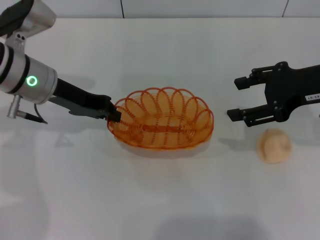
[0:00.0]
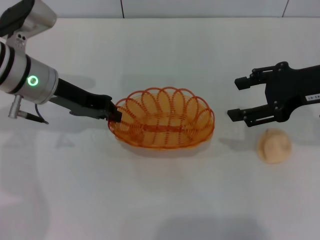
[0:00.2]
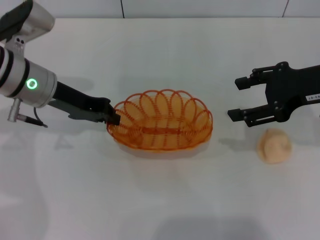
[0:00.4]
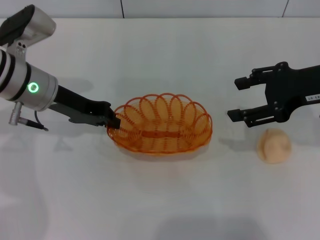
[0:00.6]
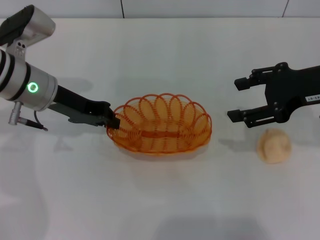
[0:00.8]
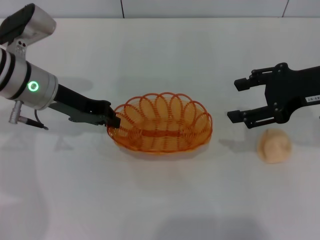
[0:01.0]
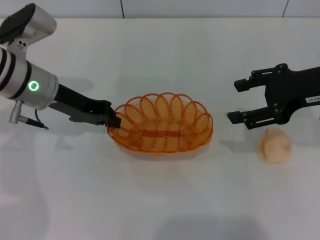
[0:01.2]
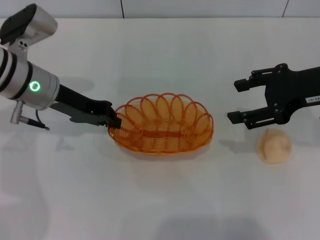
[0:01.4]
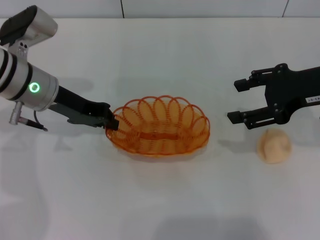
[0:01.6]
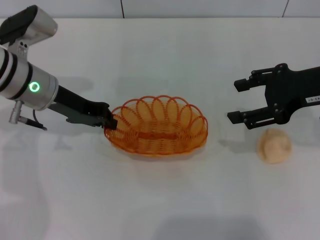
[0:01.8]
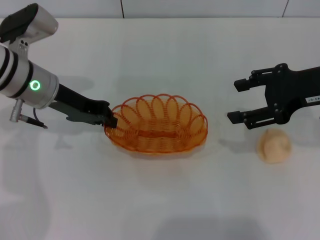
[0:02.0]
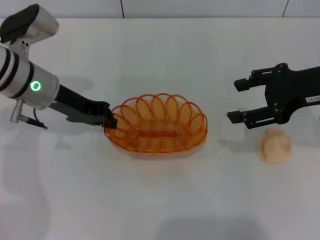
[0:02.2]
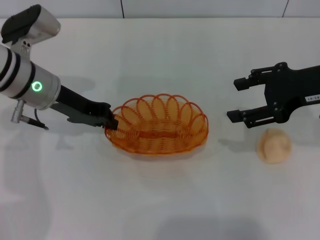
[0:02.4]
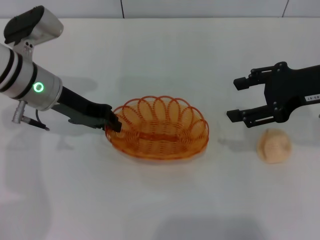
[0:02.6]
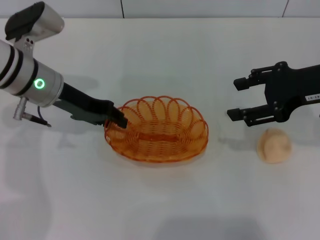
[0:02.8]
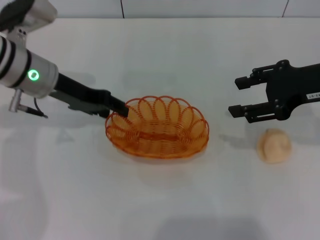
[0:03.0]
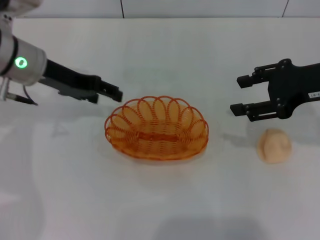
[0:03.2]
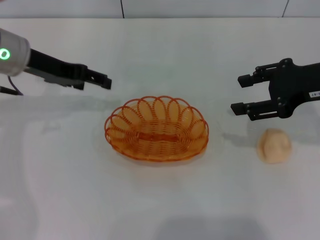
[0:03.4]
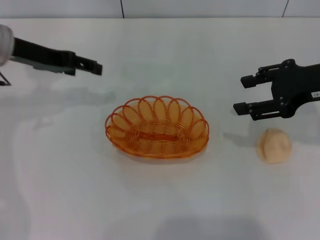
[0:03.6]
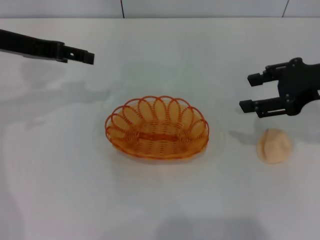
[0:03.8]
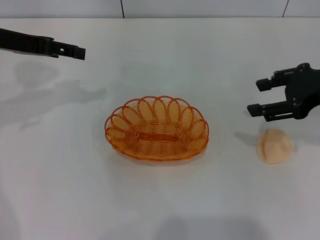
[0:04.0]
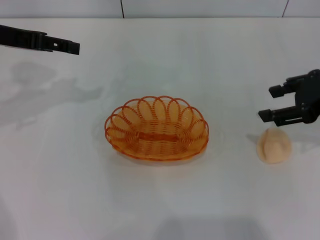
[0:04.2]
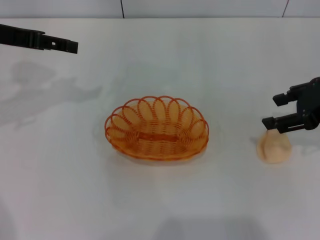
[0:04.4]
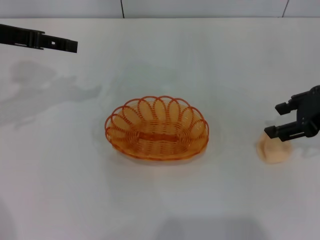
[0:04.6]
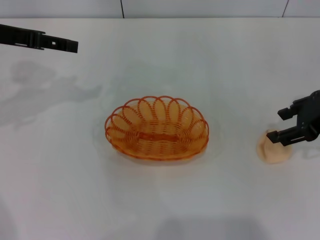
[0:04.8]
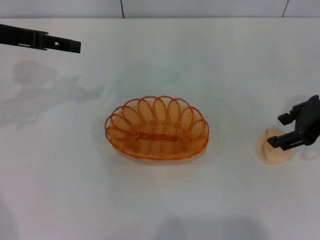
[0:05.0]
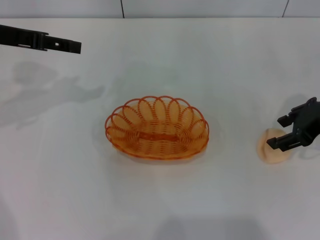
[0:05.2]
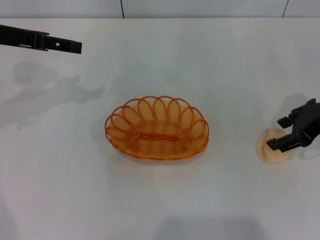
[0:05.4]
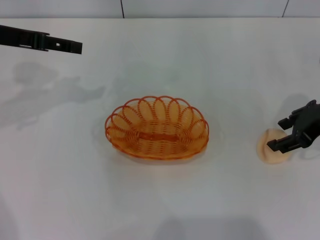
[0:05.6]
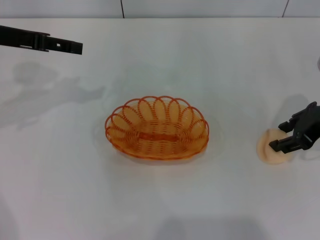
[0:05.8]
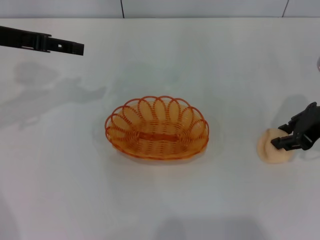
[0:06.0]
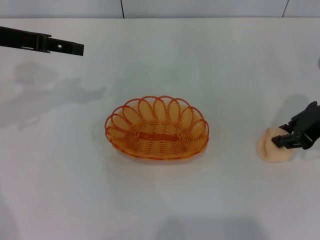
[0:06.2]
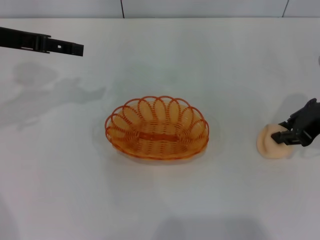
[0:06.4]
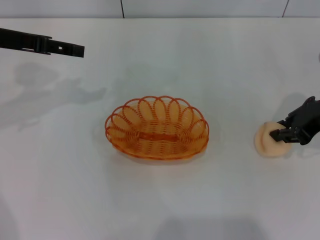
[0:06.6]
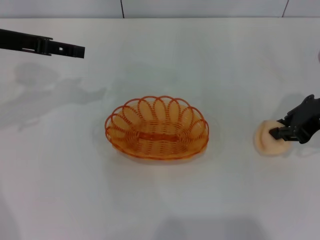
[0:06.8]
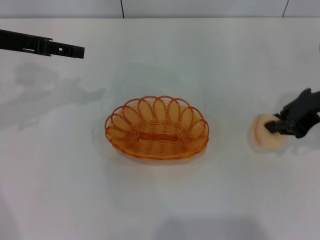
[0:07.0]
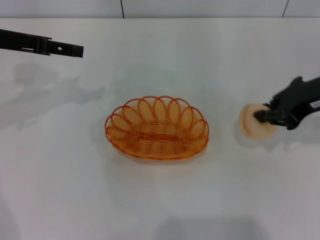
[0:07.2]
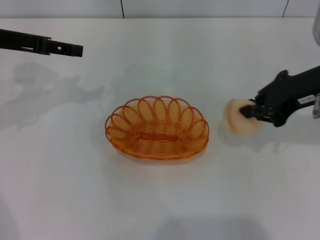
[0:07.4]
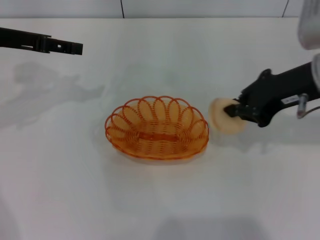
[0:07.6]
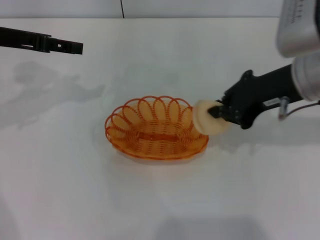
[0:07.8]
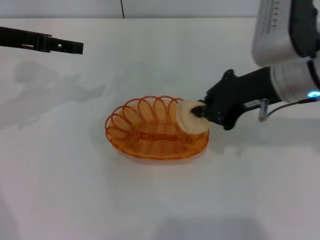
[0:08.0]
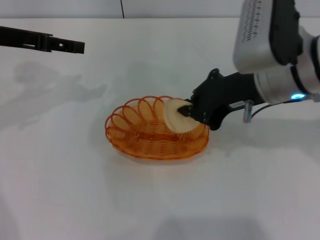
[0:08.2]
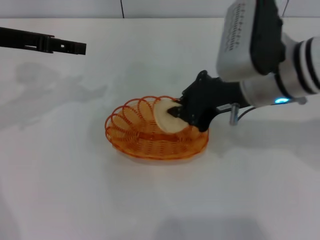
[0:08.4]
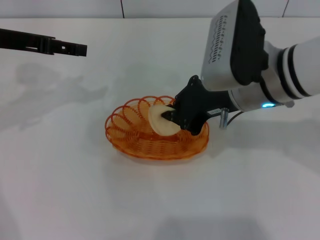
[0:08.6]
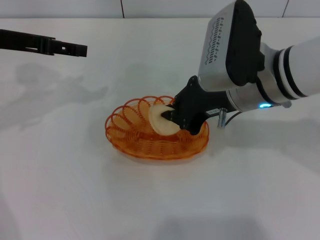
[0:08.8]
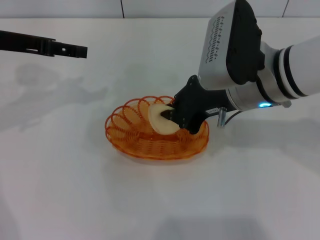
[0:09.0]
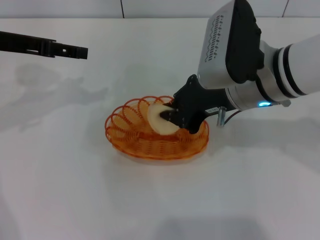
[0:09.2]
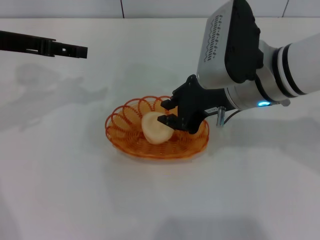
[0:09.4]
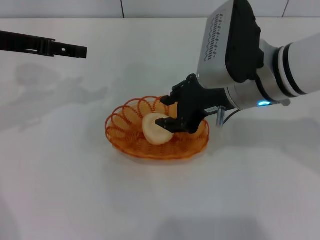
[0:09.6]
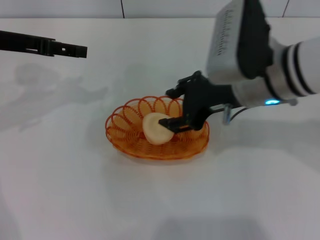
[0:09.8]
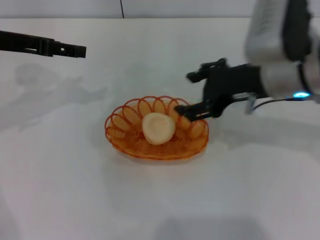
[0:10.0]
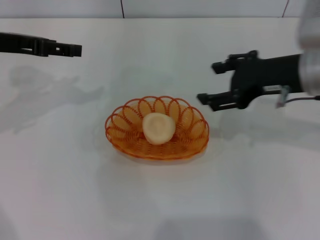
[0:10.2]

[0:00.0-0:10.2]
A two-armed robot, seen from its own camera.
Step, 0:00.0 to 0:03.2: Place the basket in the center of view with the left gripper.
Step, 0:03.4 to 0:07.2: Pick up the egg yolk pastry with the right gripper.
Step, 0:07.6 to 0:10.0: Place the egg yolk pastry into the basket with the right gripper.
0:00.0 to 0:01.4: Both grippers stay put.
0:01.4 to 0:03.0: The grippers make only small movements.
0:03.0 to 0:04.4: The left gripper goes approximately 10 cm upward and to the left, and opens its fingers.
0:04.4 to 0:05.8: The grippers move only a little.
0:05.8 to 0:07.2: The right gripper closes up.
0:07.2 to 0:08.8: The right gripper travels to the left by roughly 15 cm.
0:08.8 to 0:10.2: The right gripper shifts roughly 10 cm to the right, and opens its fingers.

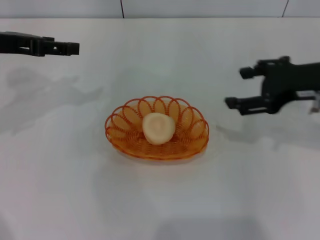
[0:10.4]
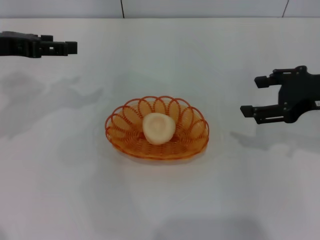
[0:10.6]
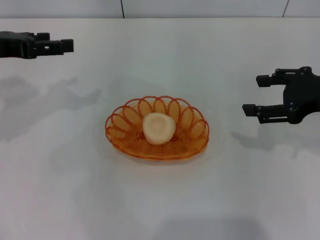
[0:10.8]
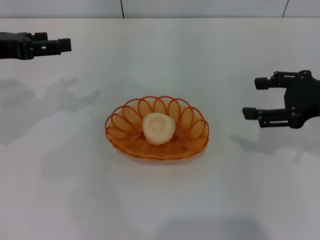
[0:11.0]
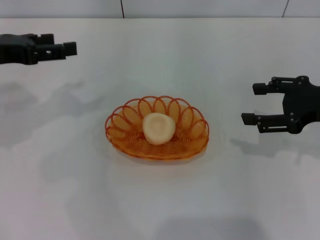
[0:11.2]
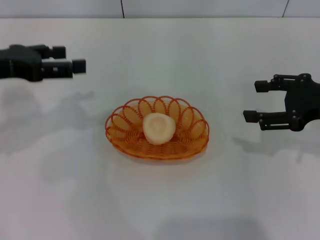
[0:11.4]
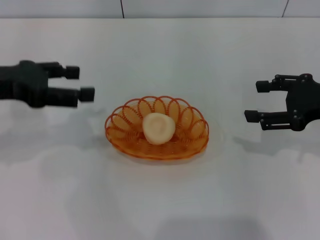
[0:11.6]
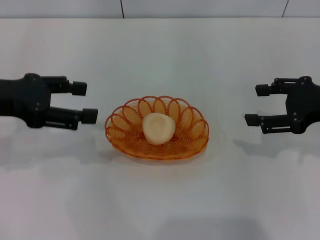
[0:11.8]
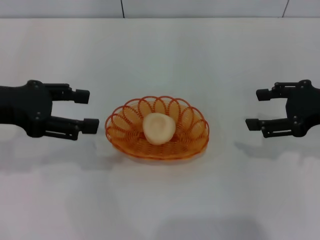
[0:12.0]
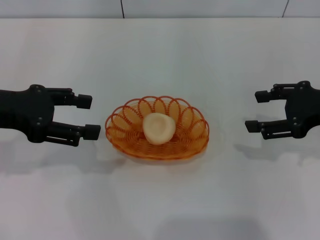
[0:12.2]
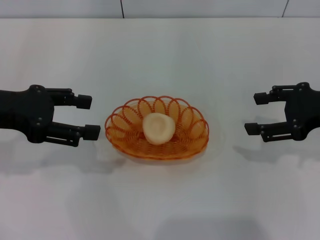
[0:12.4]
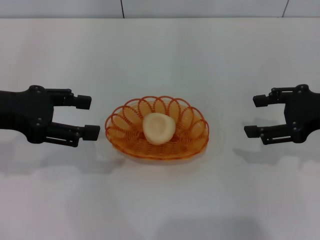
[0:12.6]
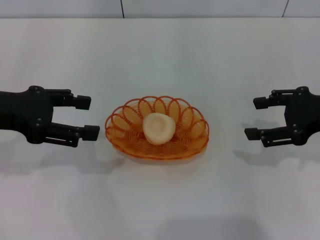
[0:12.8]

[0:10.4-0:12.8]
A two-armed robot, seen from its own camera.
0:10.4 to 0:11.6: The left gripper heads backward, covering some 5 cm. Meanwhile the right gripper travels to the right by about 5 cm.
0:11.6 to 0:12.8: The grippers move only a little.

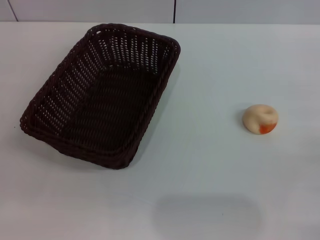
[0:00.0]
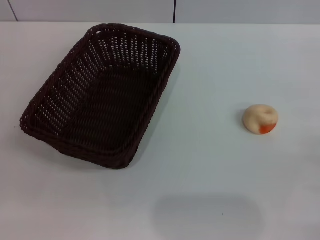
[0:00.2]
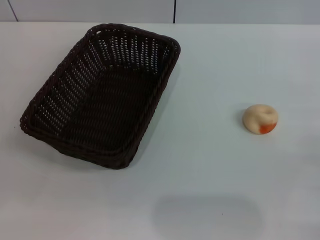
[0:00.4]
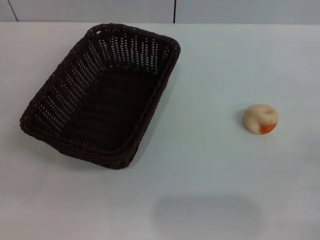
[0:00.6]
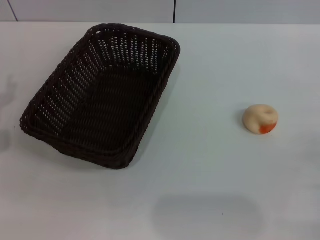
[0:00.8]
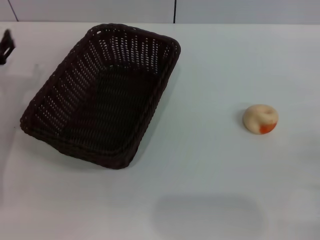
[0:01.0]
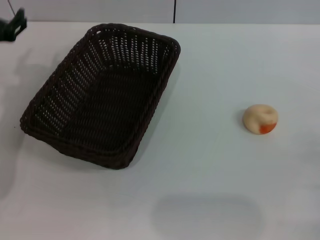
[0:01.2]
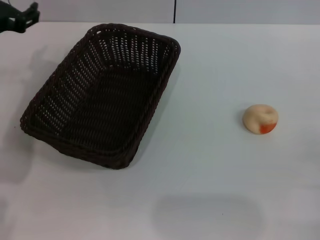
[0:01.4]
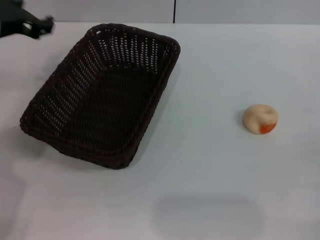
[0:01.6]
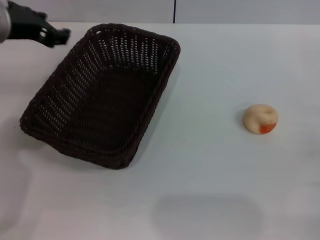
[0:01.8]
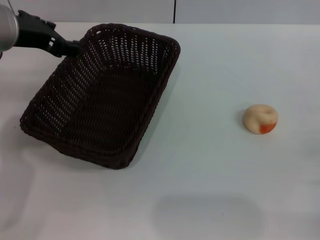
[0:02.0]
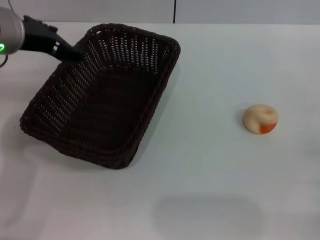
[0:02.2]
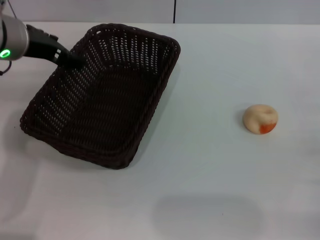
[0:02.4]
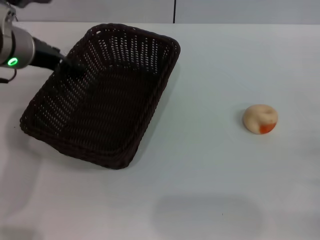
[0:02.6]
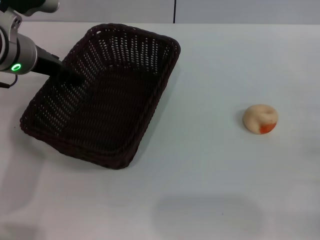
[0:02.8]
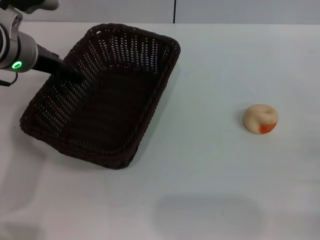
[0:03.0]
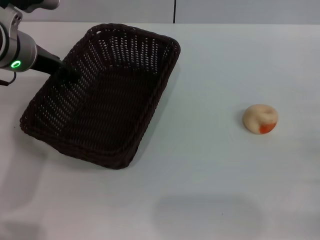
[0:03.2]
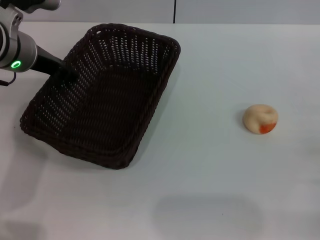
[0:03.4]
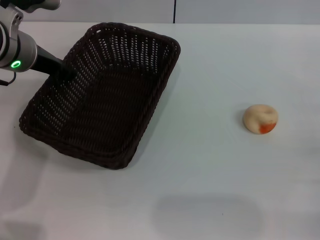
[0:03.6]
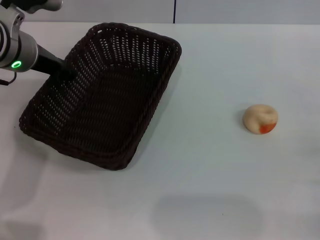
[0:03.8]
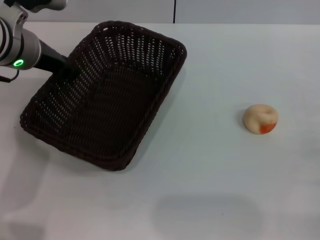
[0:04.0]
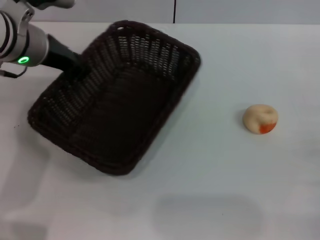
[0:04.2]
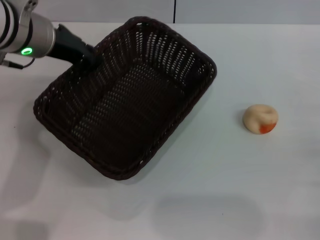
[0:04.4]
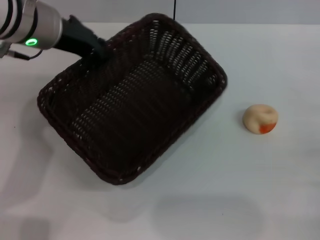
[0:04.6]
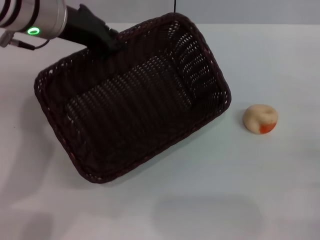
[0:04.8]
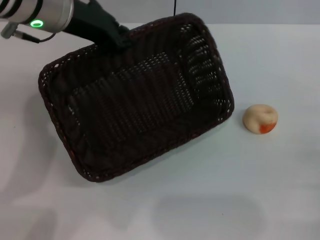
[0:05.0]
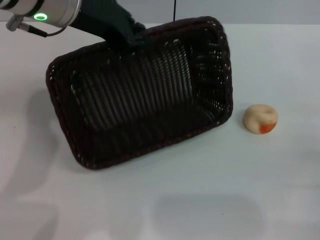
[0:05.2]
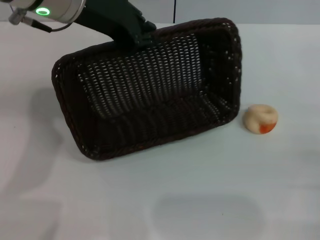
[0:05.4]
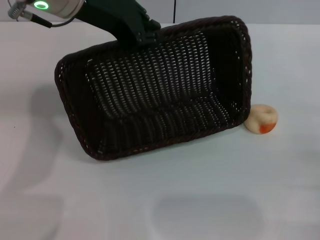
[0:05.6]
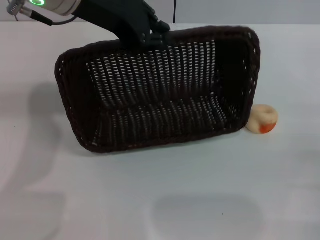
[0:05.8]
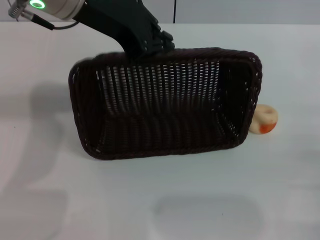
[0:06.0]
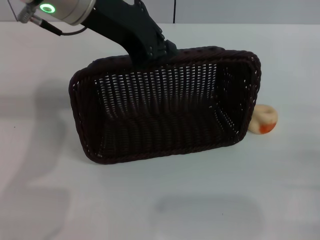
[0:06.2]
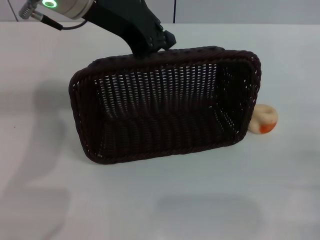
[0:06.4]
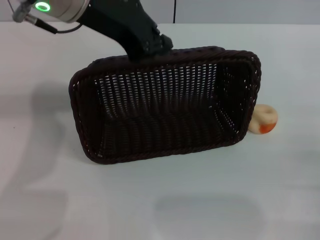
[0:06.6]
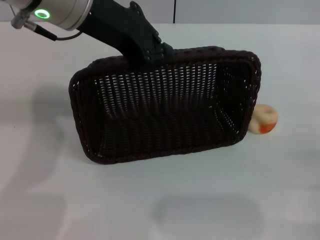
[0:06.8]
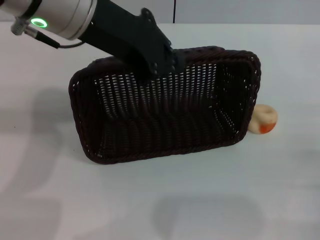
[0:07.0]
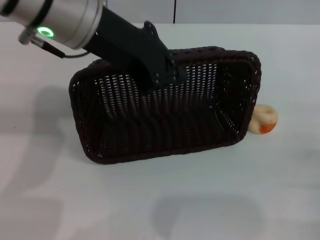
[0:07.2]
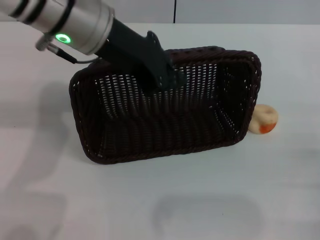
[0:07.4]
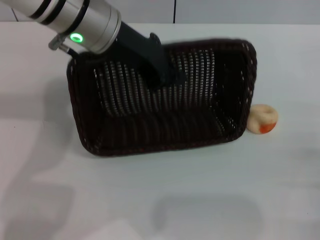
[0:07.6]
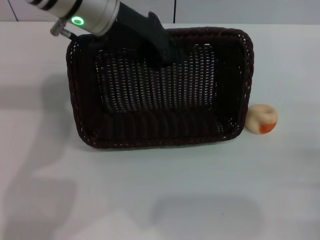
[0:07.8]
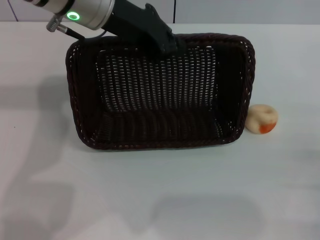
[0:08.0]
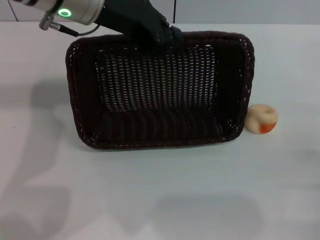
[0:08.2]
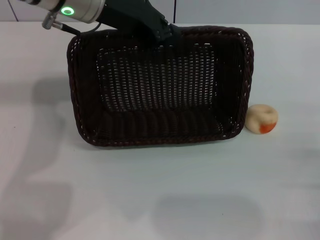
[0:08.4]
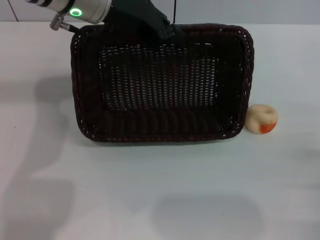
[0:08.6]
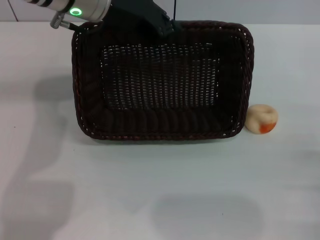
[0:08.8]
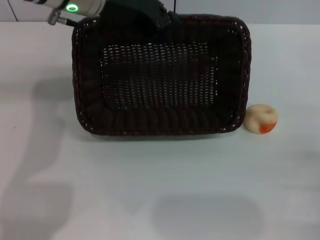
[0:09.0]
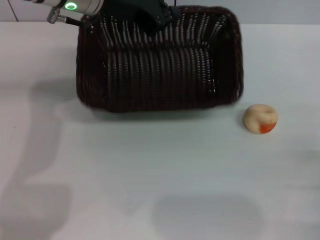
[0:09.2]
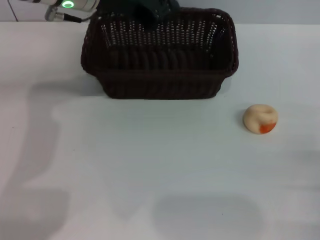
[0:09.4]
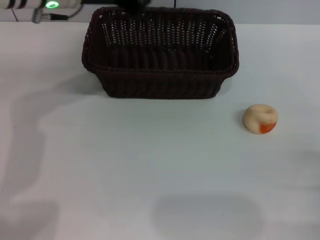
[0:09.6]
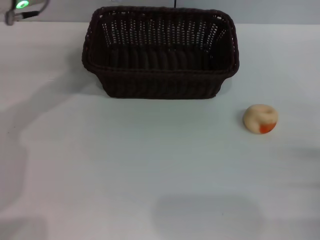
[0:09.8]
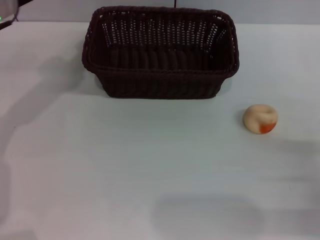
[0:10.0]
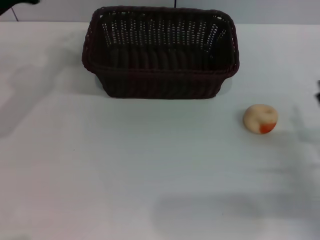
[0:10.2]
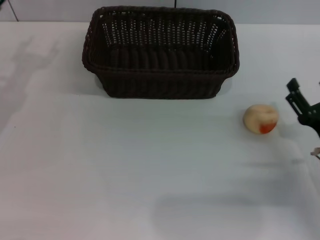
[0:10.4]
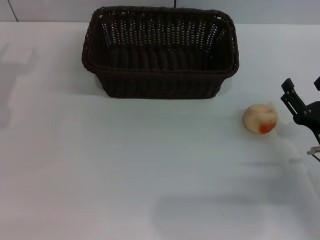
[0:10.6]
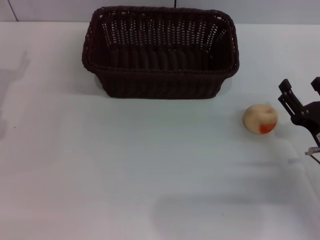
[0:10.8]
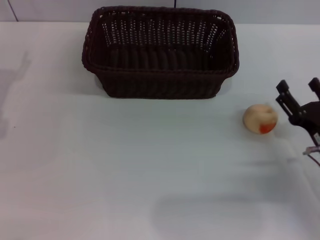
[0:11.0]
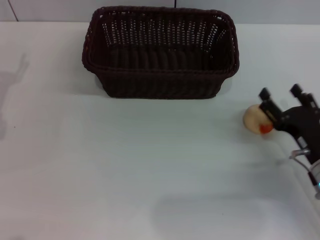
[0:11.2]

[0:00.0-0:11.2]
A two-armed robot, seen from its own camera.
Step, 0:00.0 to 0:09.4: Move the basket to the center of view with the left gripper.
0:00.0 to 0:01.6: The left gripper shifts some 25 cm upward, forward and to the right.
0:01.6 to 0:03.2: The left gripper shifts by roughly 5 cm.
0:03.2 to 0:04.8: The left gripper moves upward, about 5 cm, and closes its fingers.
0:04.8 to 0:06.4: The left gripper ends up about 5 cm from where it was.
0:06.4 to 0:08.0: The grippers move only a little.
0:09.6 to 0:11.2: The right gripper moves to the left and forward, approximately 10 cm; the left gripper is displaced to the left, downward and backward by approximately 25 cm, and opens up.
